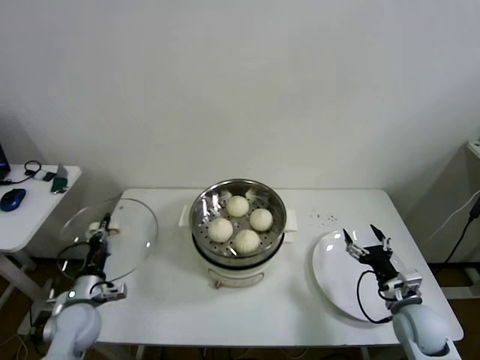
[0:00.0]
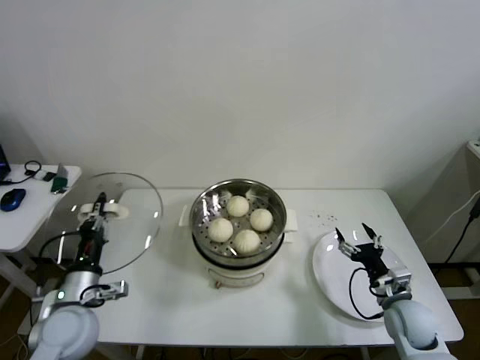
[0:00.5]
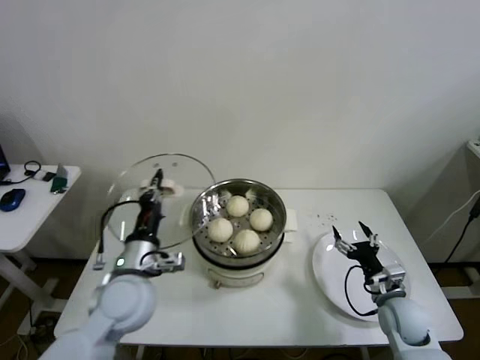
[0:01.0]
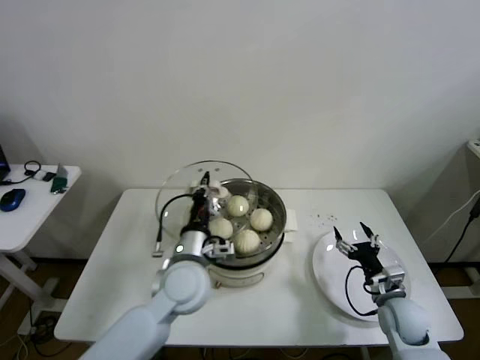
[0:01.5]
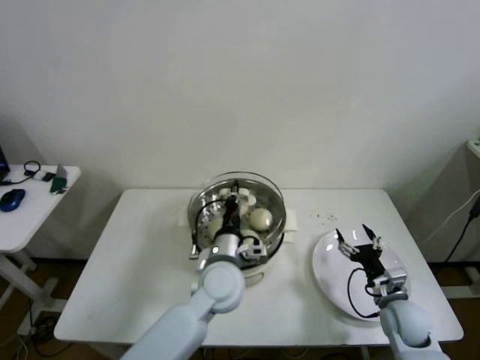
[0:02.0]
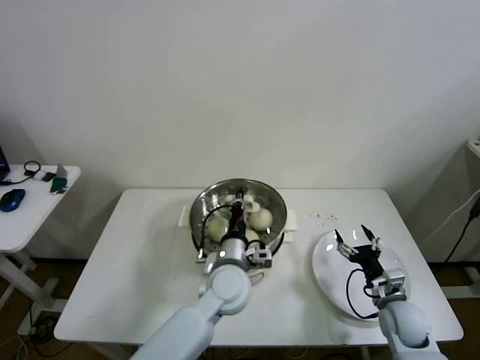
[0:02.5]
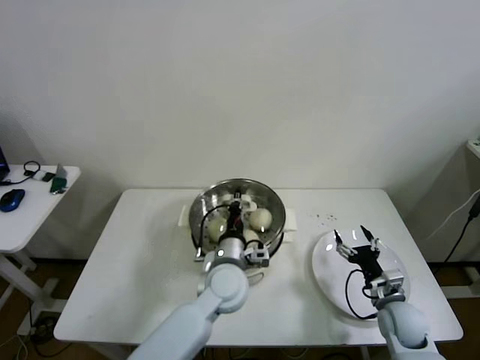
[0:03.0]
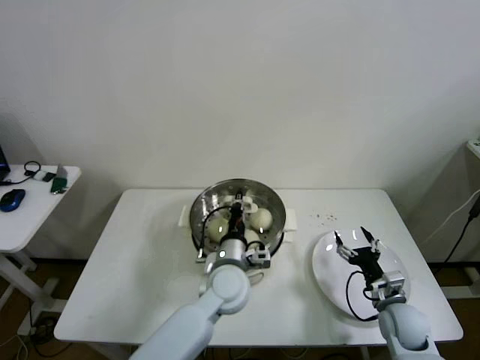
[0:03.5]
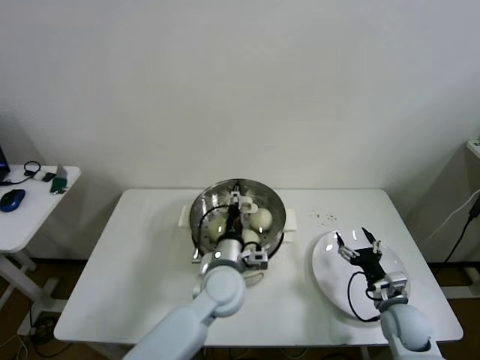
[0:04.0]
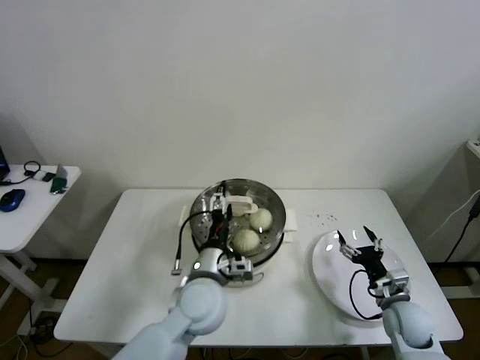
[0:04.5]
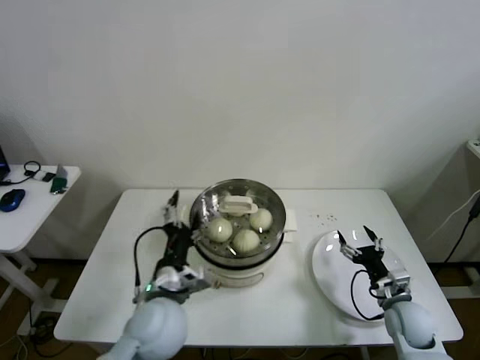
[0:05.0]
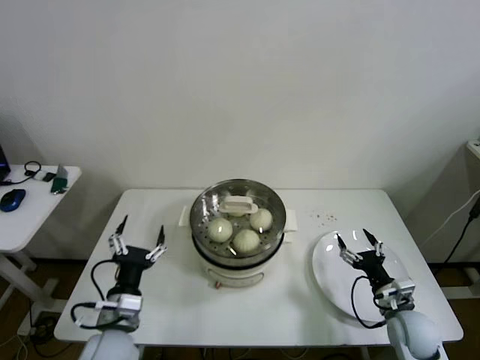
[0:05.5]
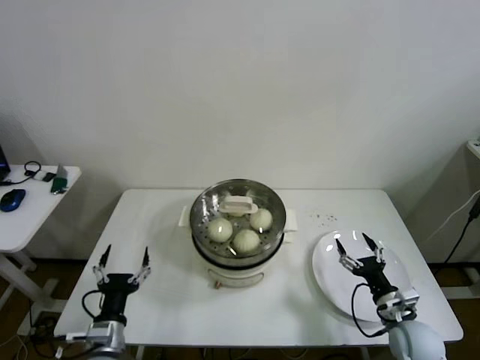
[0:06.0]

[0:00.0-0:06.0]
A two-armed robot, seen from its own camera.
Step, 0:00.0 to 0:03.5: Place the pot lid on the steamer with left gripper.
0:00.0 to 0:02.0: The left gripper travels to the right by some 30 cm.
0:02.0 to 0:04.0: The left gripper opens.
0:04.0 to 0:06.0: The left gripper goes roughly 30 cm to the left and backward, and opens.

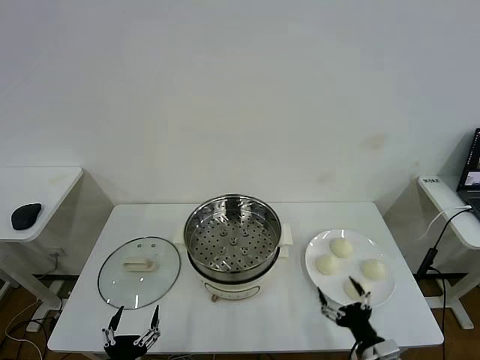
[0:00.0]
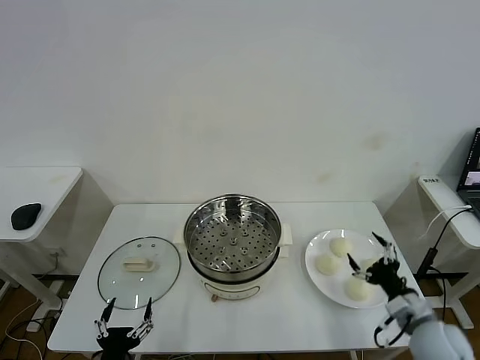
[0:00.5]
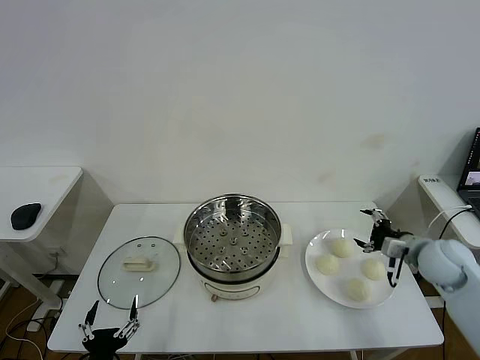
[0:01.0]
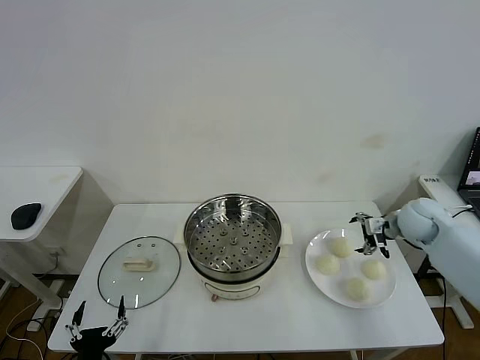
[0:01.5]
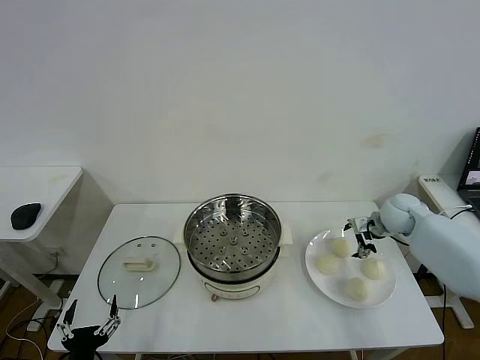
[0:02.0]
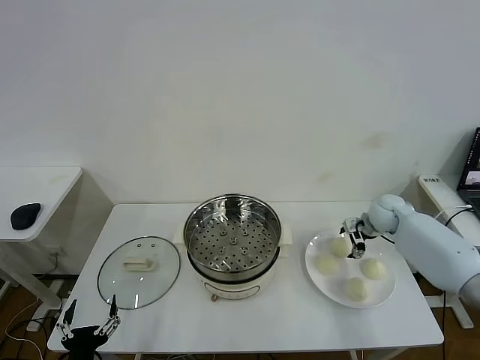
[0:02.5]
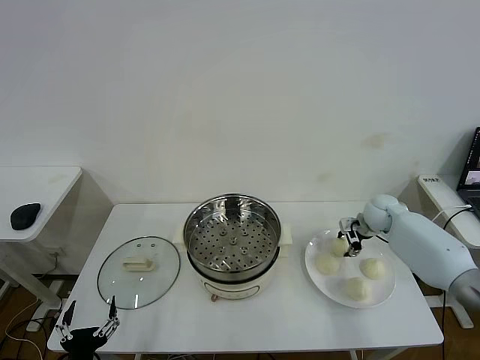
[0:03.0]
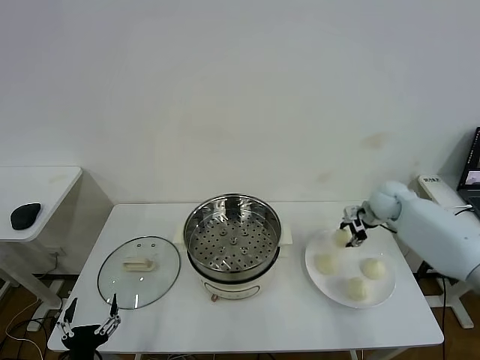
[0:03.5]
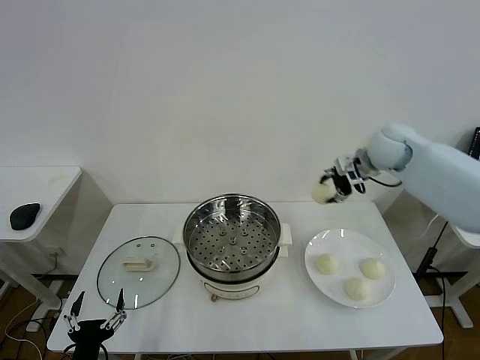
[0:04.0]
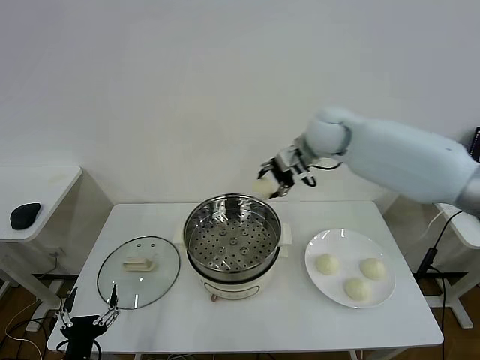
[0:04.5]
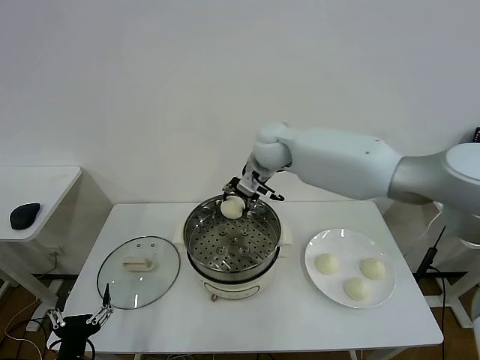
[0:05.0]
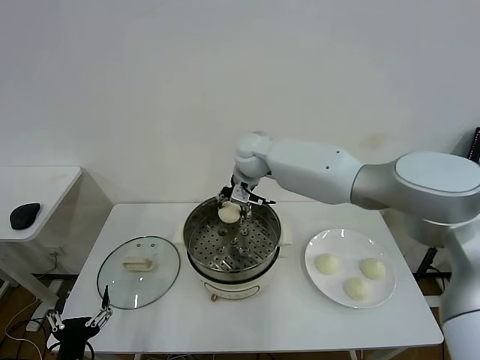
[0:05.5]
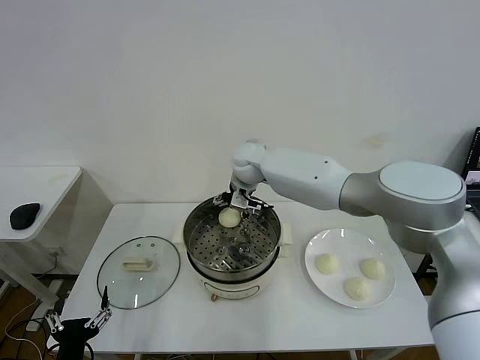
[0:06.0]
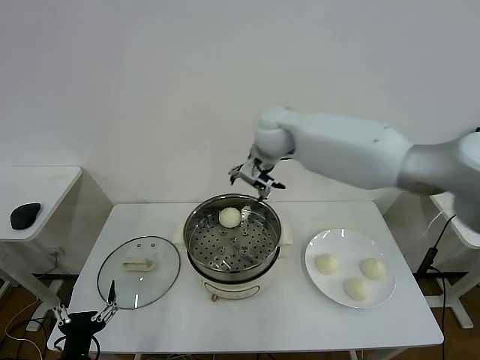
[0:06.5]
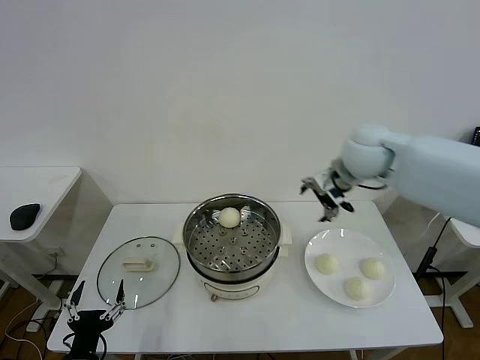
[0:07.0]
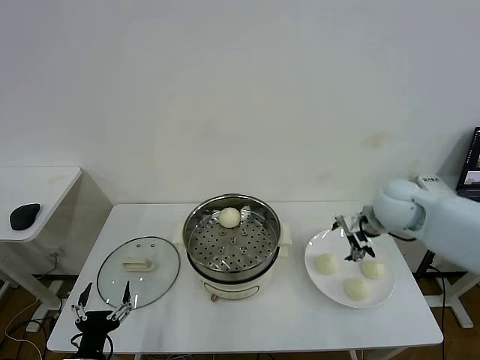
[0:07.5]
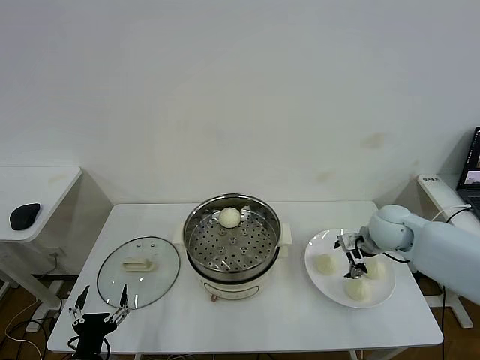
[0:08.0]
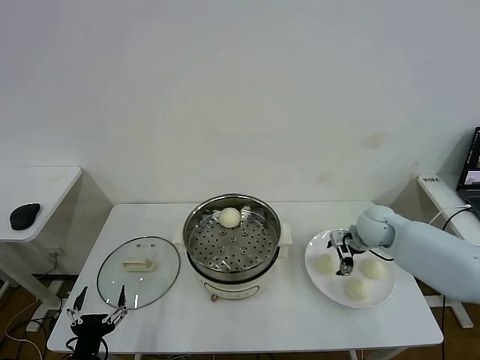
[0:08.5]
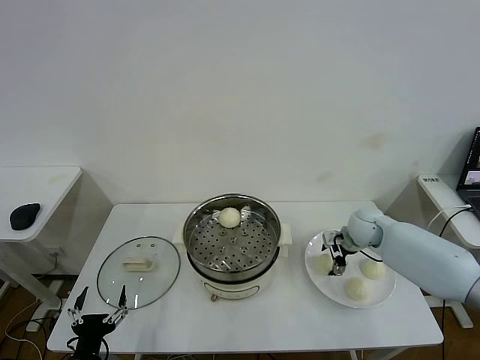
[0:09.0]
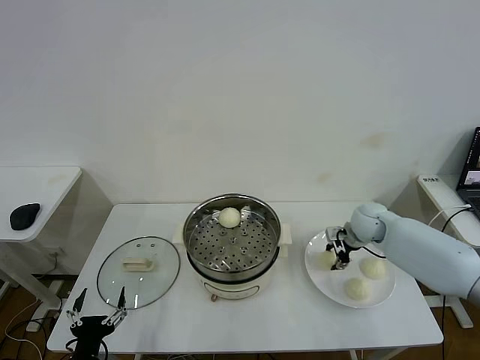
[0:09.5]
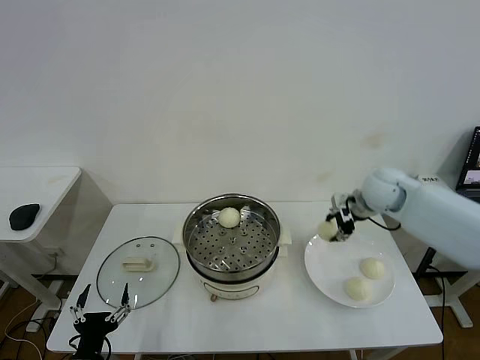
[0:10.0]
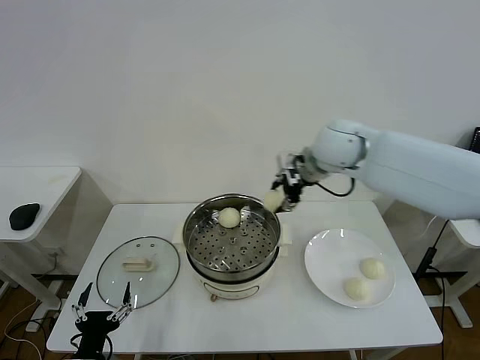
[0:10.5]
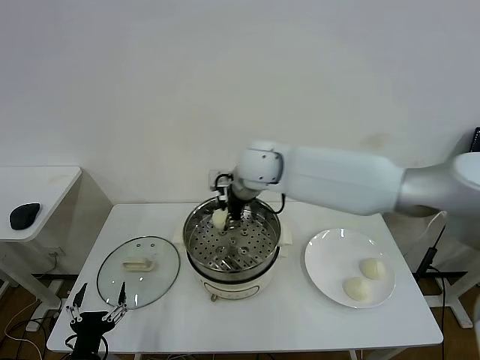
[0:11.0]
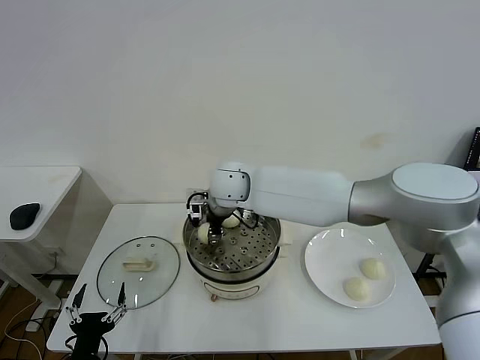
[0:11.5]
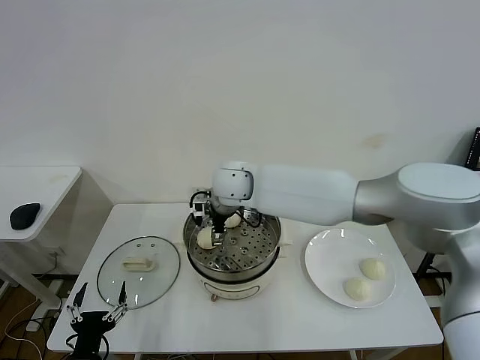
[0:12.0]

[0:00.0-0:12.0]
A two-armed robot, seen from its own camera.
Step, 0:00.0 to 0:03.0: Grasp the baozi in the plate with right gripper.
Step, 0:03.5 to 0:05.5: Place the baozi on the steamer with right gripper.
Step, 0:06.5 to 0:09.0: Grasp the baozi in the plate with right gripper.
Step, 0:09.5 to 0:11.5: Place the baozi on the steamer with right gripper.
0:02.0 to 0:04.0: The right gripper travels upward and to the left by approximately 25 cm, and closes its fingers.
0:04.0 to 0:06.0: The right gripper heads to the left, covering some 25 cm, and opens.
0:06.0 to 0:08.0: The right gripper shifts approximately 35 cm to the right and backward.
0:08.0 to 0:10.0: The right gripper shifts roughly 15 cm upward and forward, and closes up.
0:10.0 to 0:12.0: The right gripper goes about 30 cm to the left, and opens its fingers.

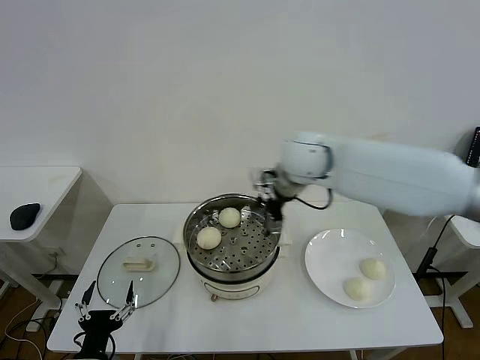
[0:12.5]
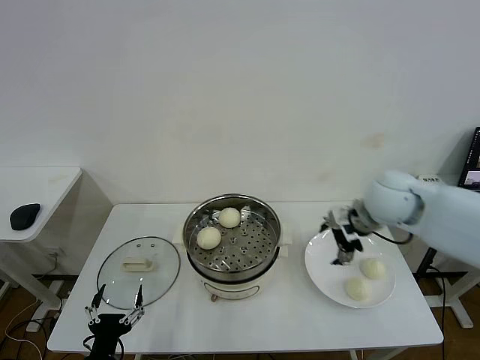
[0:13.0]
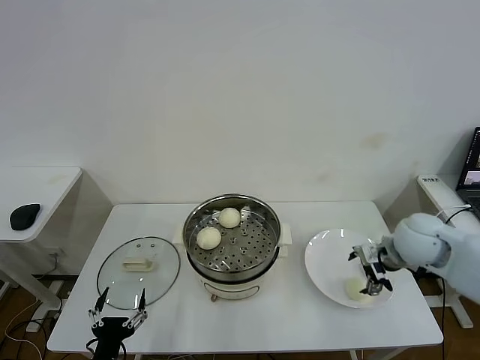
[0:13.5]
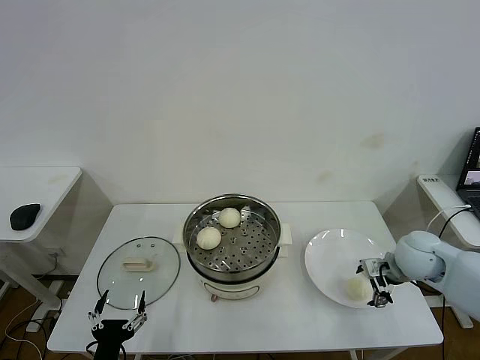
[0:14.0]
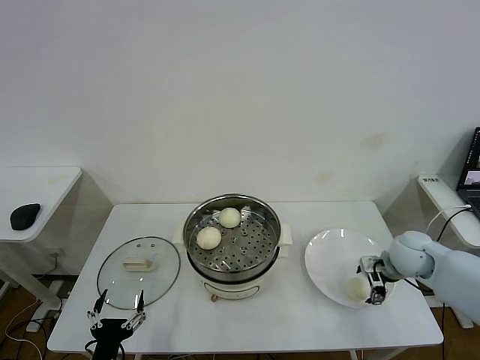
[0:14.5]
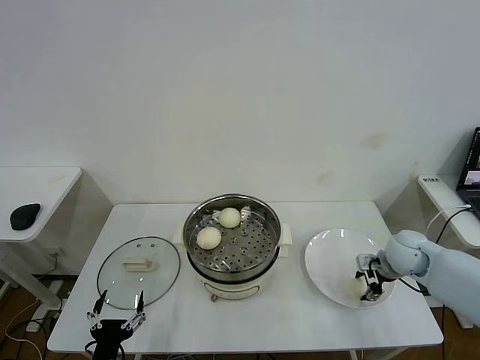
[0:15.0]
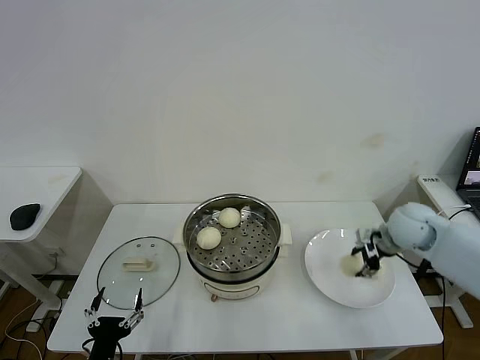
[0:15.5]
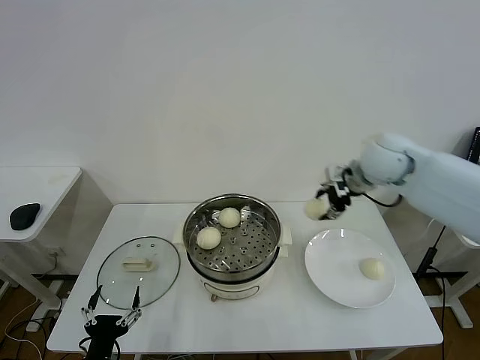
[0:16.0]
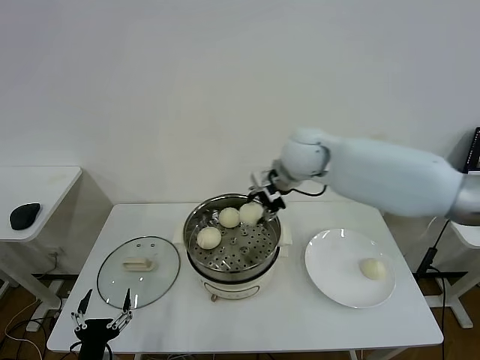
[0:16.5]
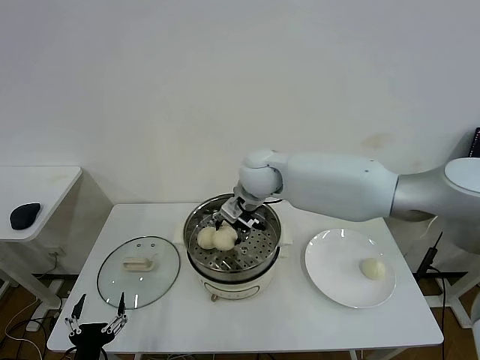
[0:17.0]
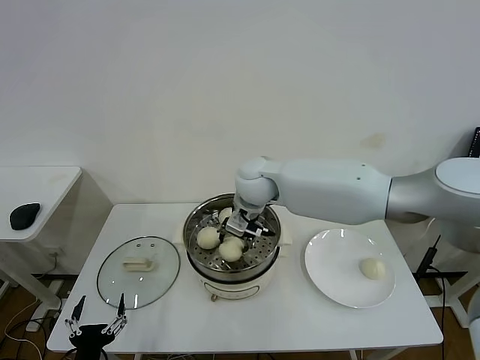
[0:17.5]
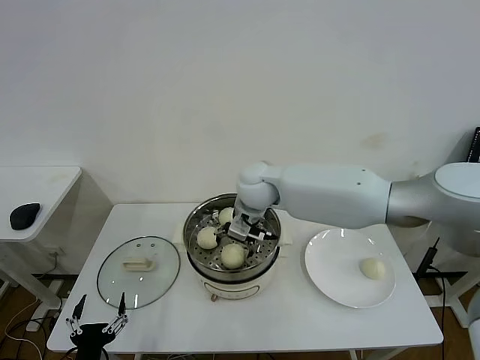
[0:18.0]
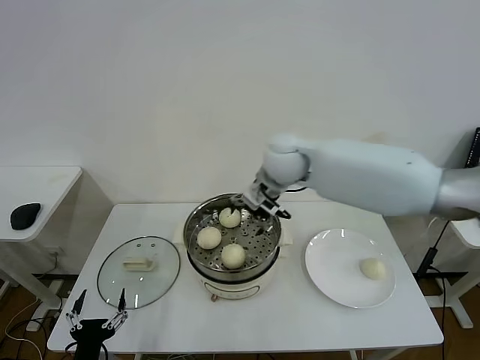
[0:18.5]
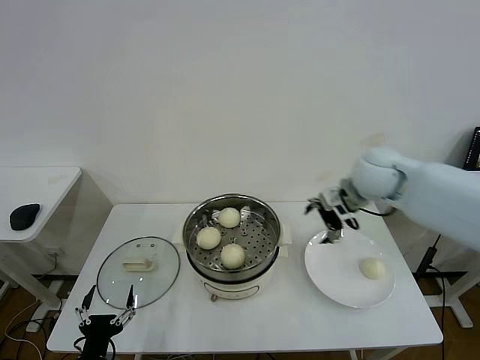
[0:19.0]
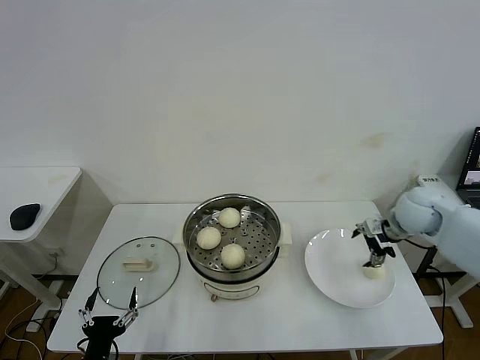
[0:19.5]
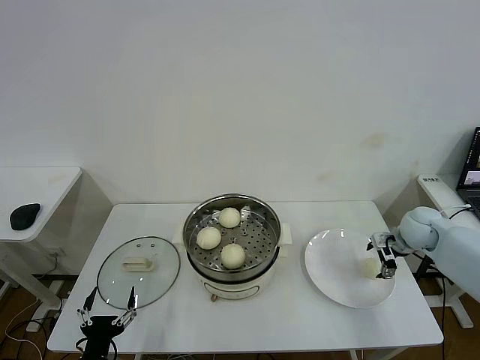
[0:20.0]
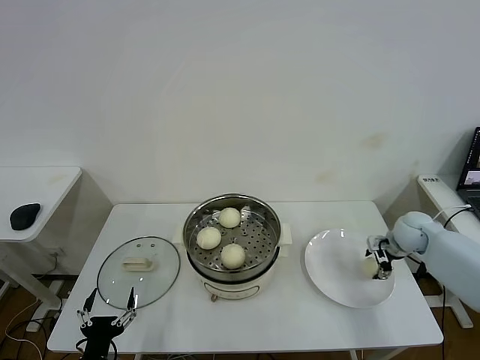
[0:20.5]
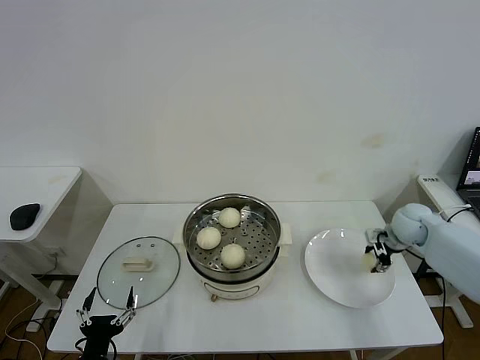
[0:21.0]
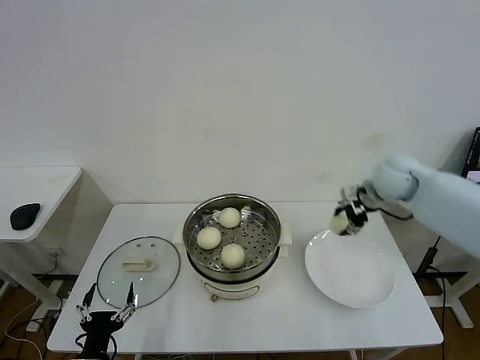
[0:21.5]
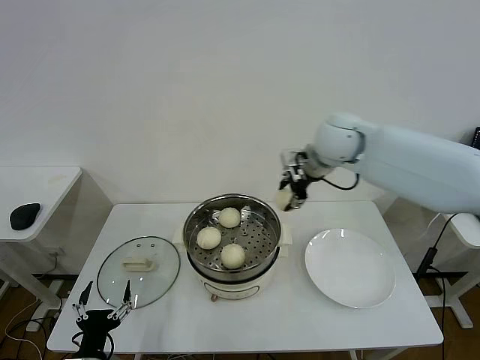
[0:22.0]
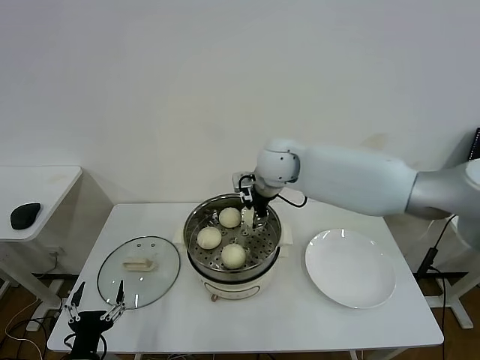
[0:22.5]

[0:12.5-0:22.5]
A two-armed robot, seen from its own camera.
Step, 0:12.5 to 0:15.0: Grasp the baozi in the plate with right gripper.
Step, 0:15.5 to 0:17.5: Place the baozi on the steamer with right gripper.
Step, 0:18.0 to 0:20.5: Grasp the baozi in the plate with right gripper.
0:12.5 to 0:14.5: The right gripper goes roughly 30 cm to the right and downward.
0:14.5 to 0:16.5: The right gripper heads to the left and upward, covering approximately 35 cm, and closes.
0:16.5 to 0:18.5: The right gripper goes to the left and returns, approximately 10 cm each way, and opens up.
0:18.5 to 0:20.5: The right gripper goes about 40 cm to the right and downward, and closes its fingers.
0:20.5 to 0:22.5: The right gripper shifts about 40 cm to the left and upward, and closes its fingers.
